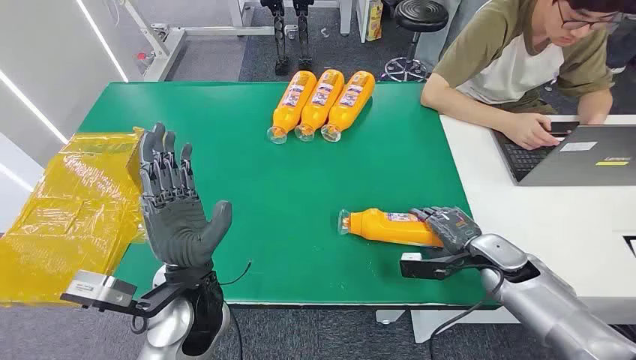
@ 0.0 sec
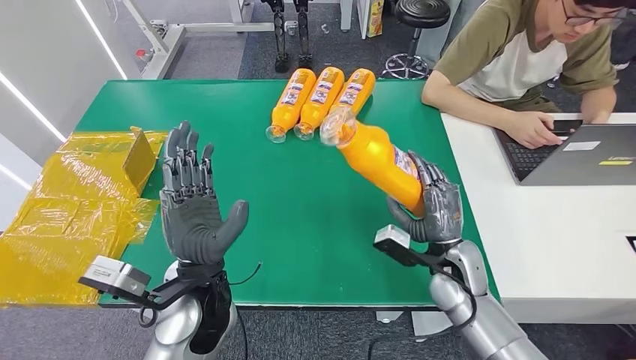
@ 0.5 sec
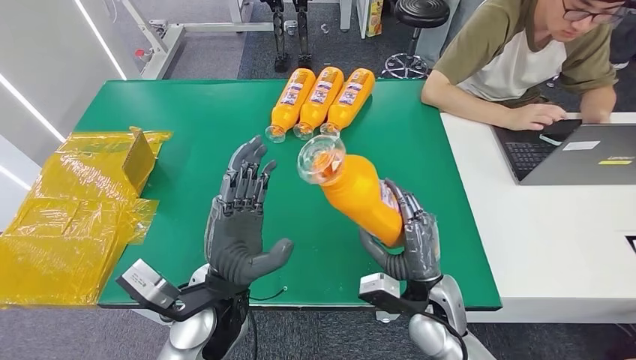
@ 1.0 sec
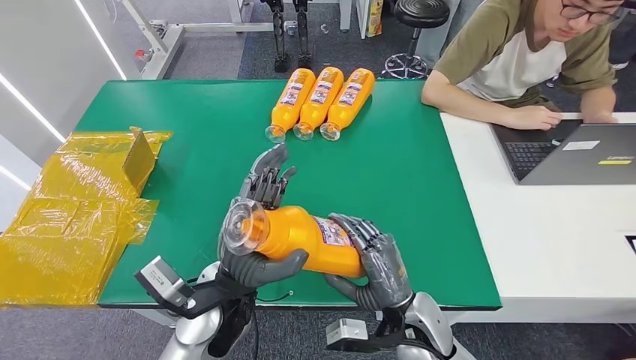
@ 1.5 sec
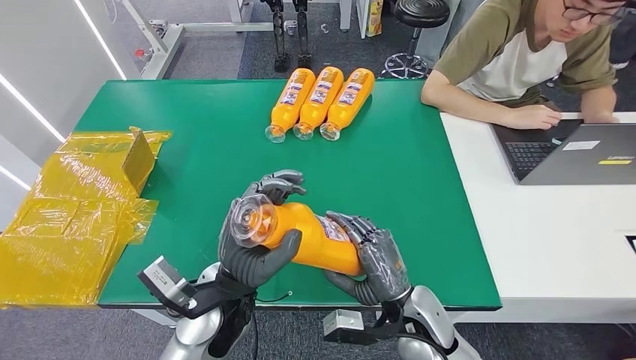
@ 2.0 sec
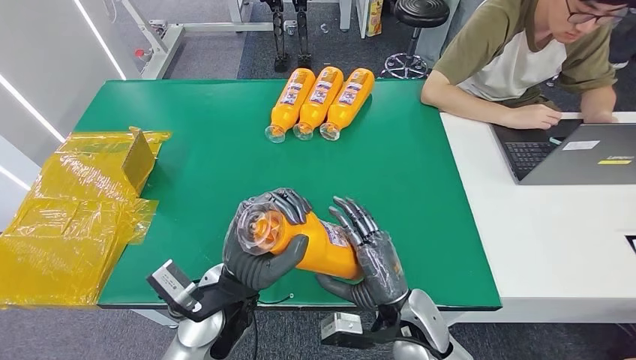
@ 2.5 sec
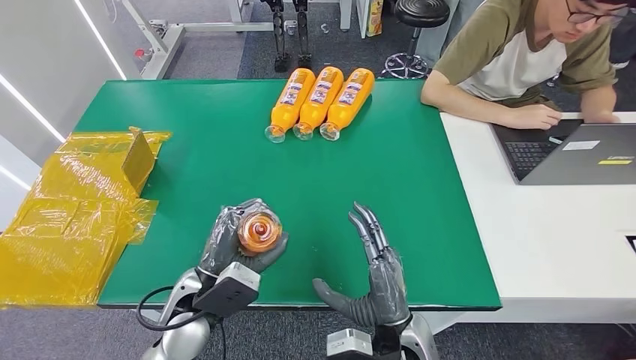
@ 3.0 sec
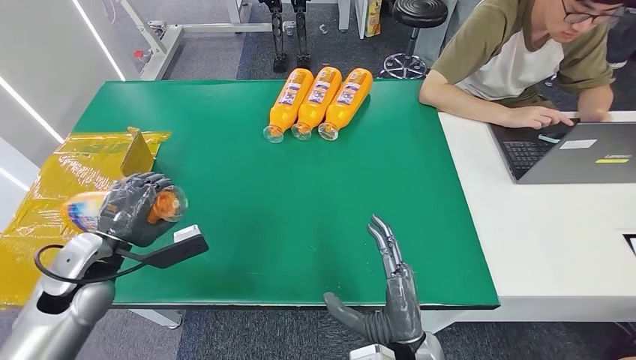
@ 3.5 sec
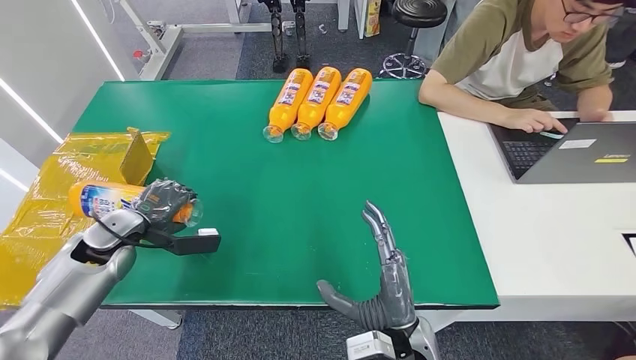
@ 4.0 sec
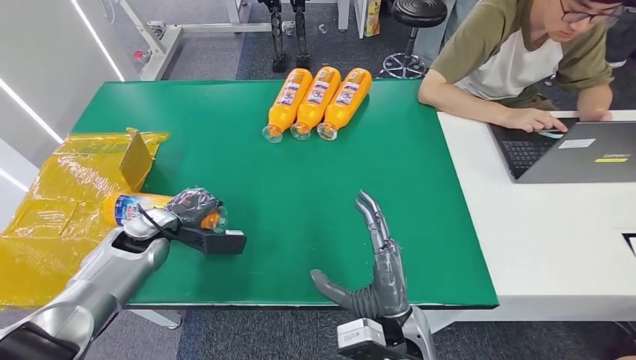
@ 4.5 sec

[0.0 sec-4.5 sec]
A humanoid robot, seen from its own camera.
Step, 0.0 sec to 1.0 sec: Pick up the bottle from the table.
Step, 1.5 sec to 4.5 sec: Turn the bottle to the front side.

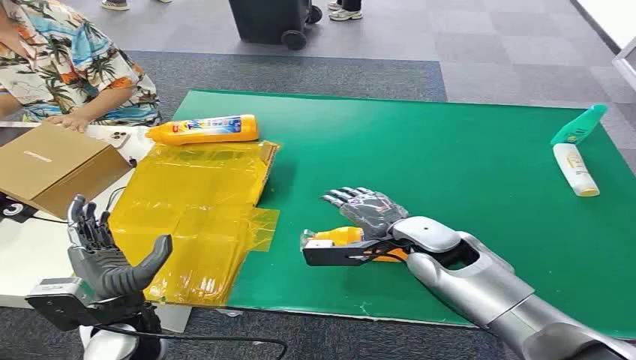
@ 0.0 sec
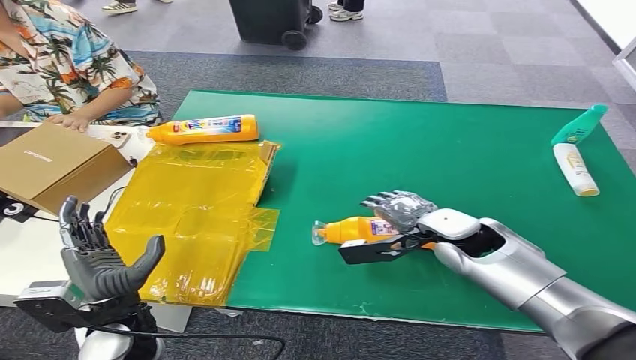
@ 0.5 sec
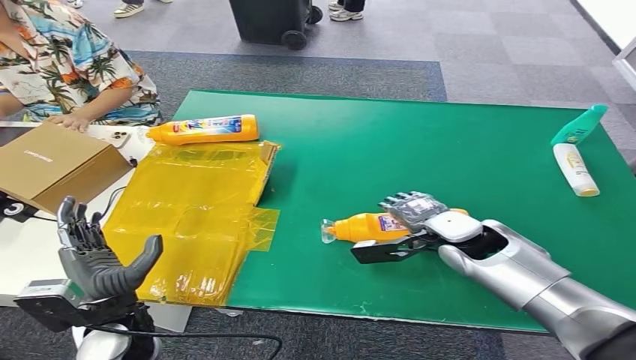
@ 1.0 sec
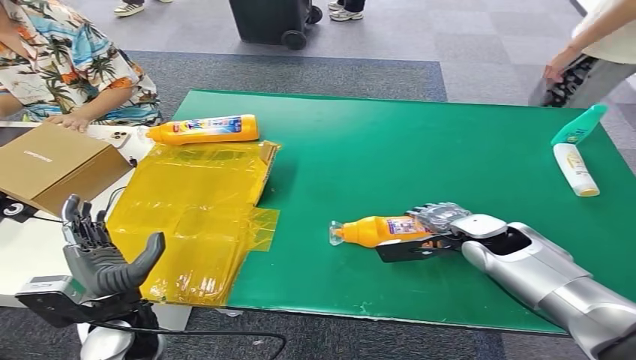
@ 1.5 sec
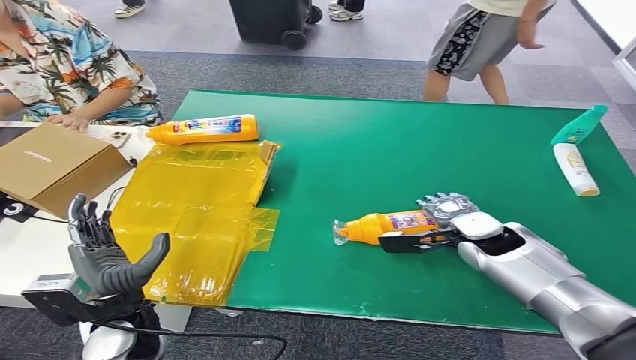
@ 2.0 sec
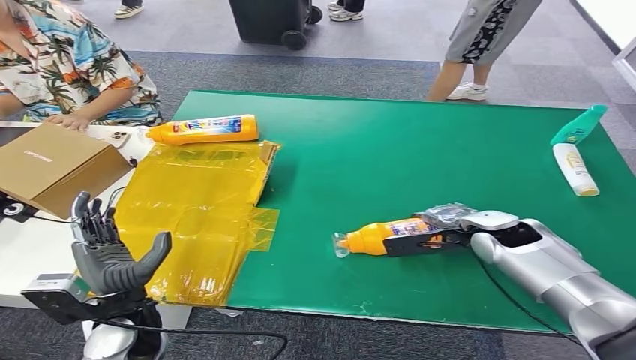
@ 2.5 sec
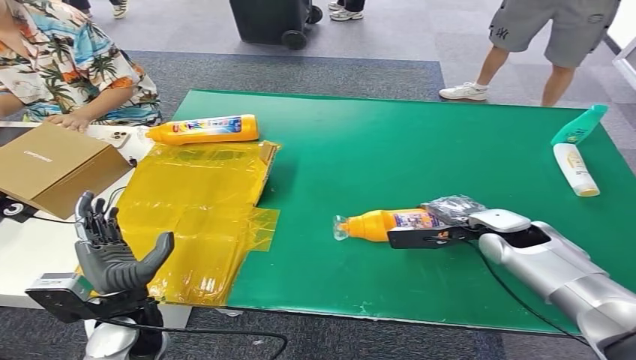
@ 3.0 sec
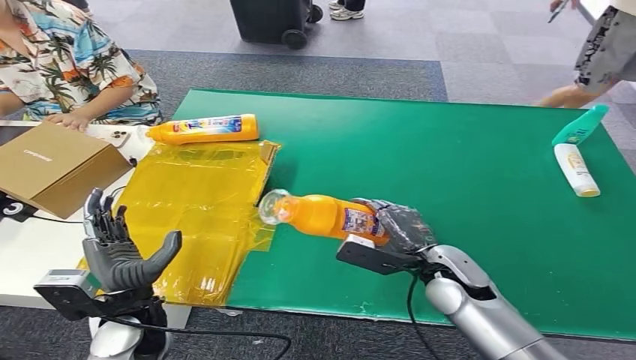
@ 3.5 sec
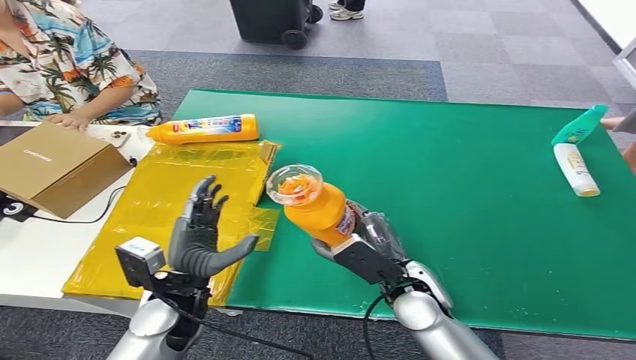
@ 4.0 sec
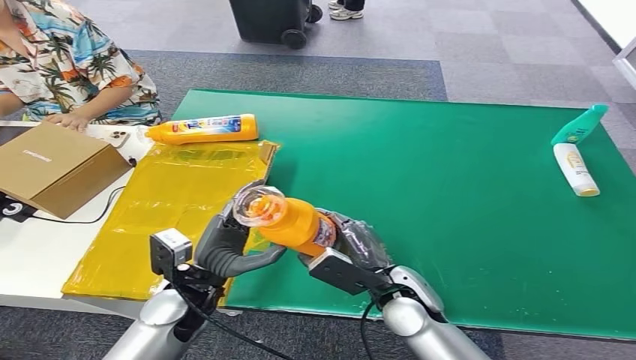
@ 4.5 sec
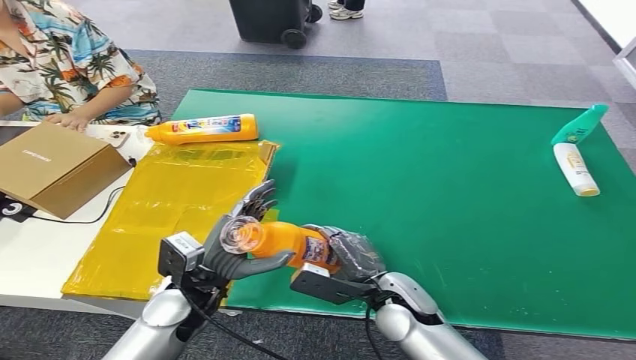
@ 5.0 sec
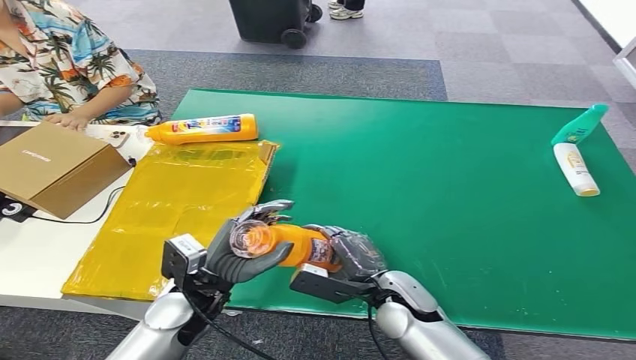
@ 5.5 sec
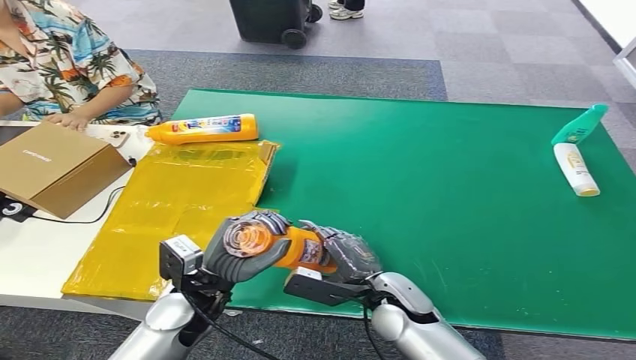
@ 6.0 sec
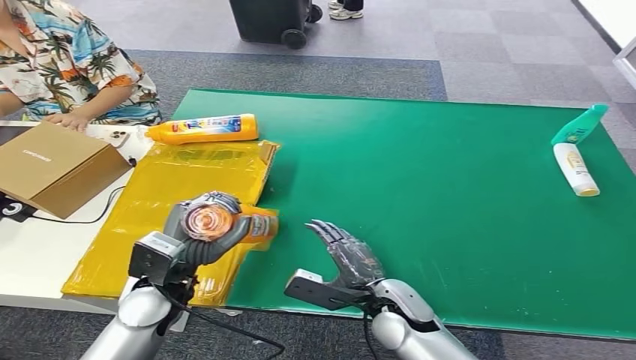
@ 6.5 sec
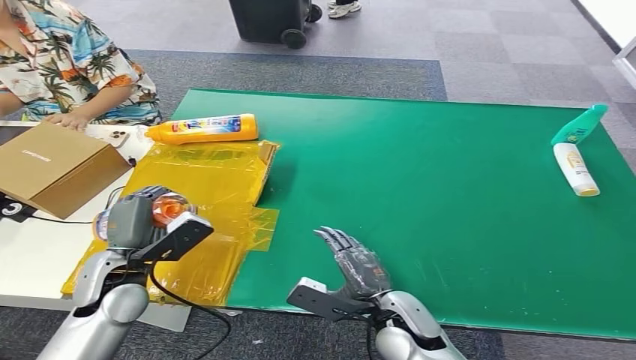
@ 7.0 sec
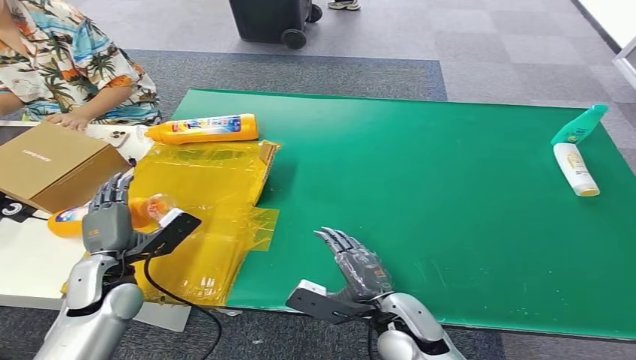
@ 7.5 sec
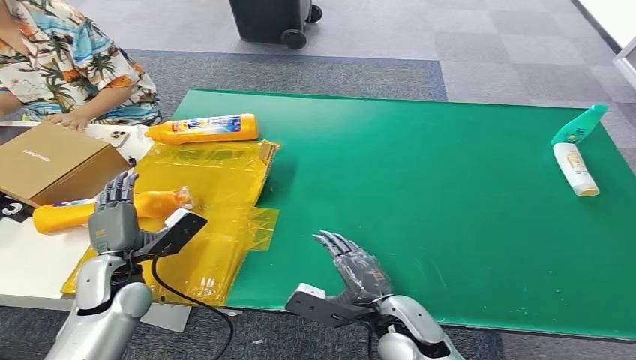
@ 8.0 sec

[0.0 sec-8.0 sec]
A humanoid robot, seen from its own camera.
Step, 0.0 sec to 3.5 sec: Pick up the bottle from the table.
Step, 4.0 sec to 8.0 sec: Turn the bottle to the front side.
6.0 sec to 8.0 sec: The left hand travels to the left by roughly 10 cm.
